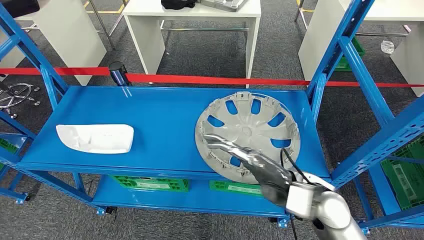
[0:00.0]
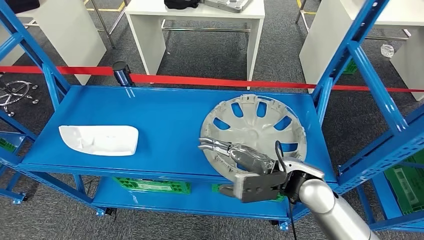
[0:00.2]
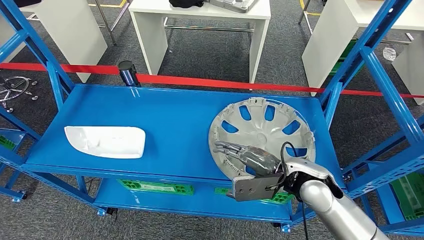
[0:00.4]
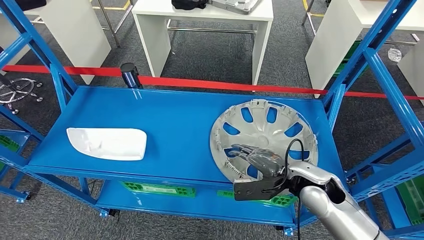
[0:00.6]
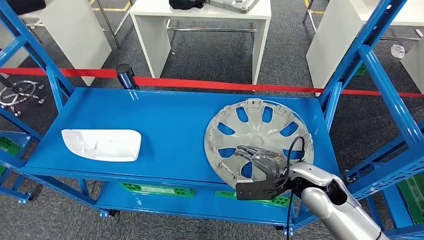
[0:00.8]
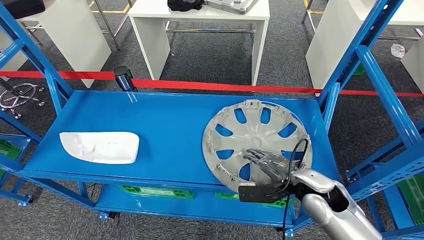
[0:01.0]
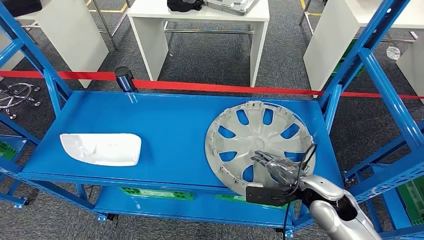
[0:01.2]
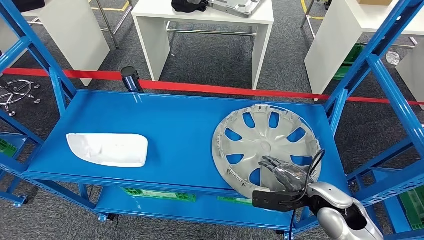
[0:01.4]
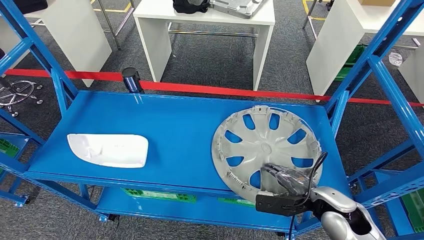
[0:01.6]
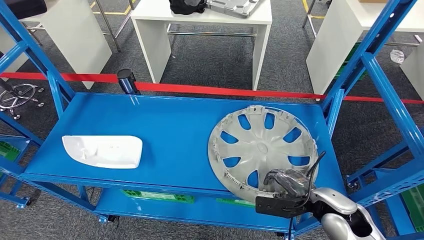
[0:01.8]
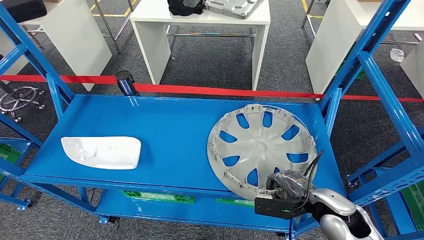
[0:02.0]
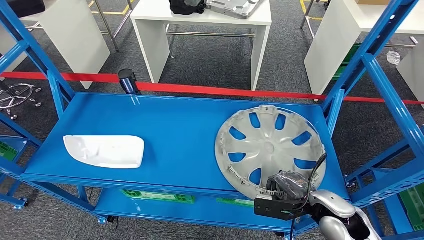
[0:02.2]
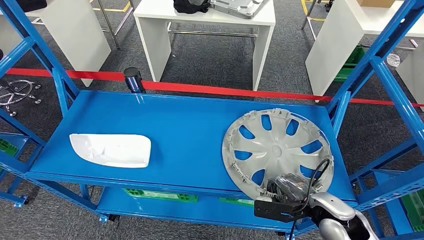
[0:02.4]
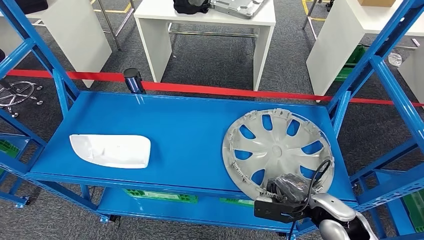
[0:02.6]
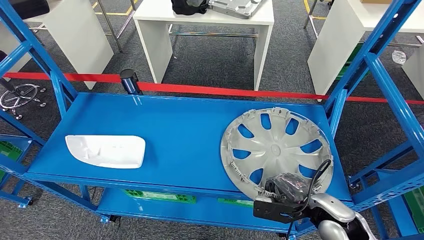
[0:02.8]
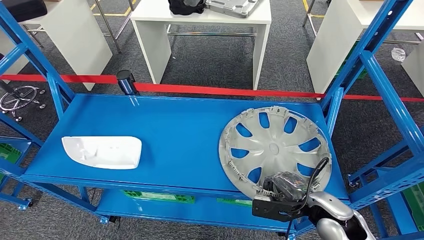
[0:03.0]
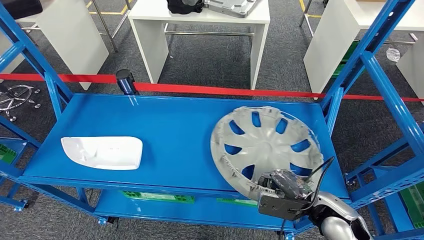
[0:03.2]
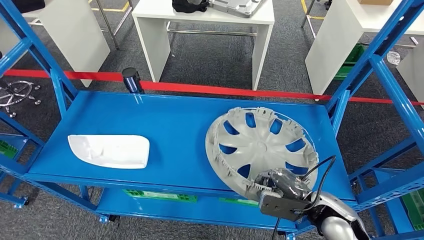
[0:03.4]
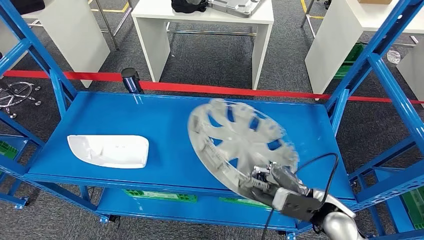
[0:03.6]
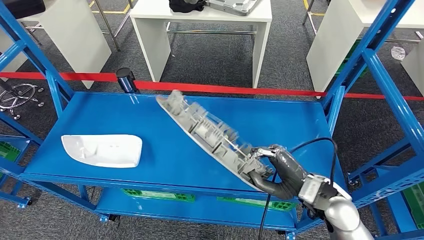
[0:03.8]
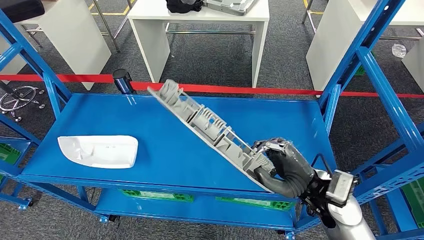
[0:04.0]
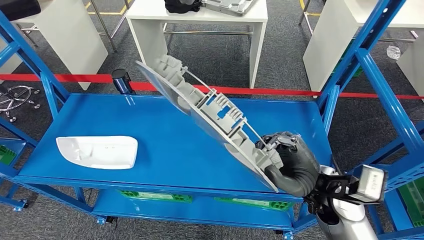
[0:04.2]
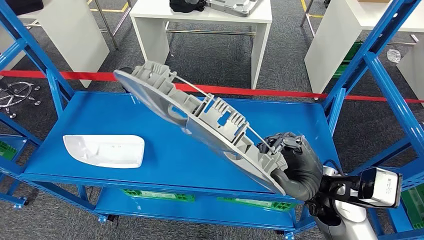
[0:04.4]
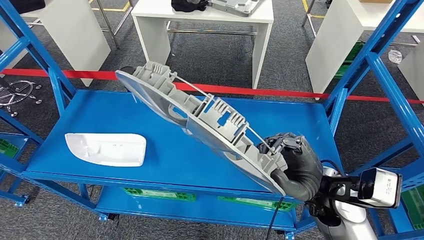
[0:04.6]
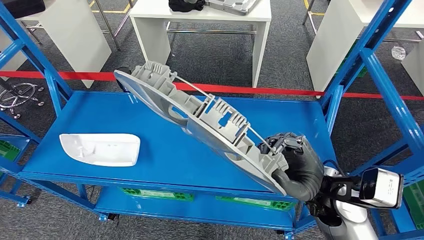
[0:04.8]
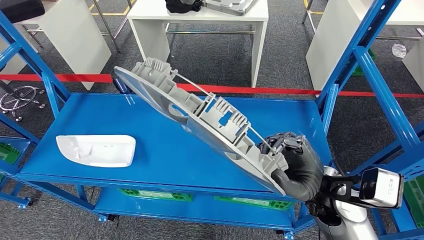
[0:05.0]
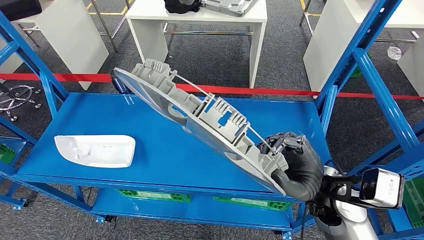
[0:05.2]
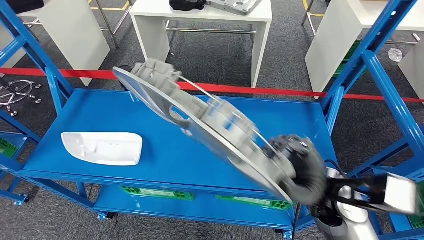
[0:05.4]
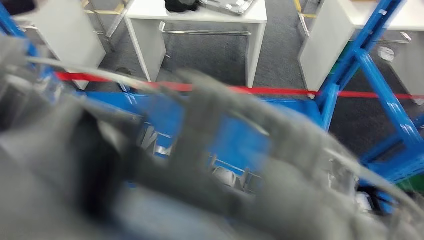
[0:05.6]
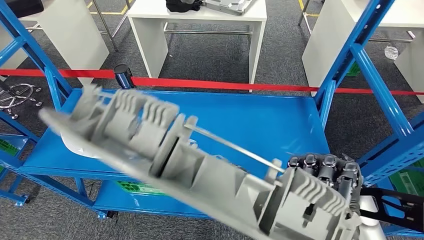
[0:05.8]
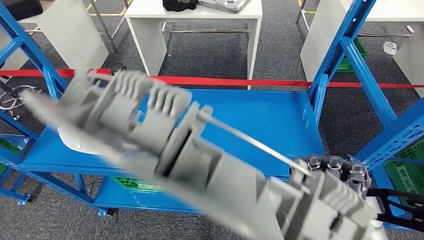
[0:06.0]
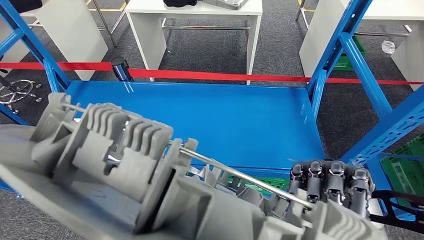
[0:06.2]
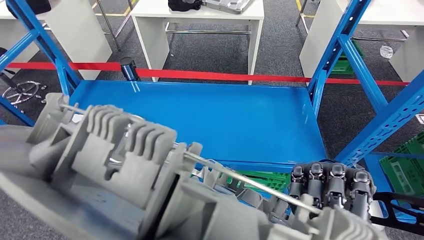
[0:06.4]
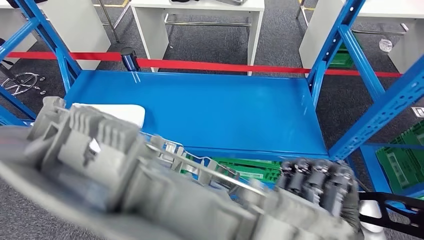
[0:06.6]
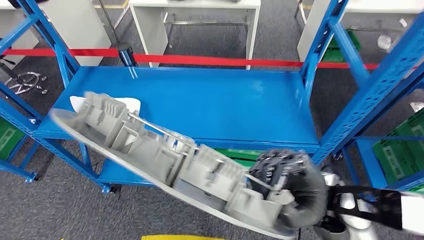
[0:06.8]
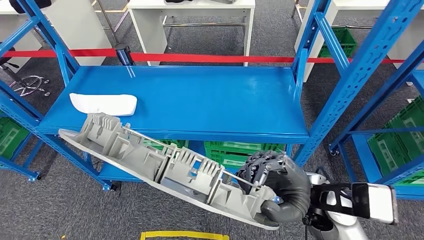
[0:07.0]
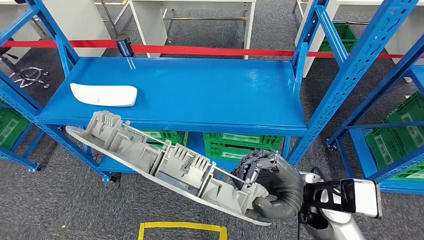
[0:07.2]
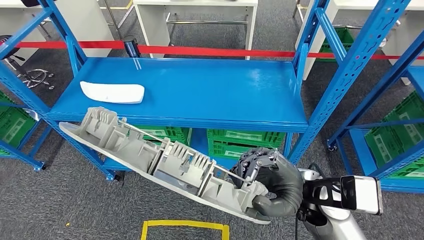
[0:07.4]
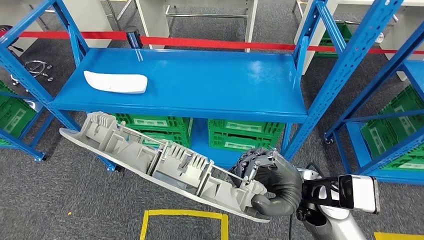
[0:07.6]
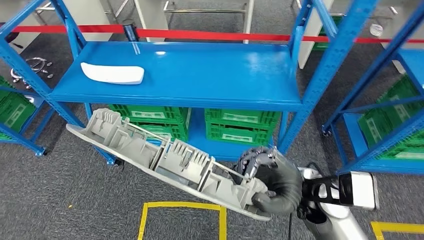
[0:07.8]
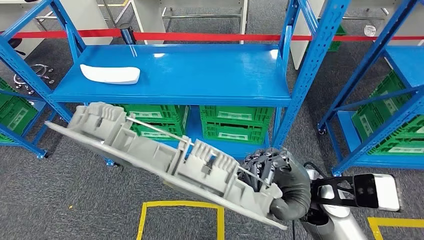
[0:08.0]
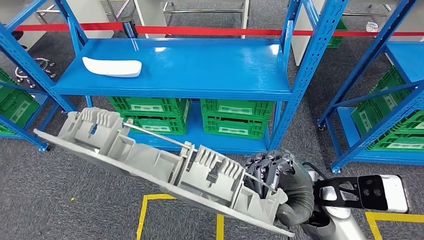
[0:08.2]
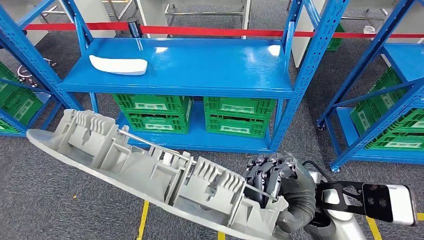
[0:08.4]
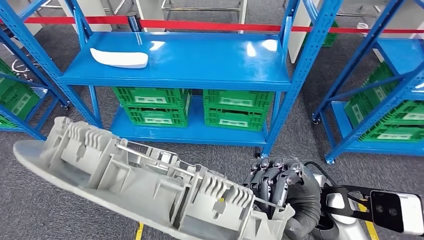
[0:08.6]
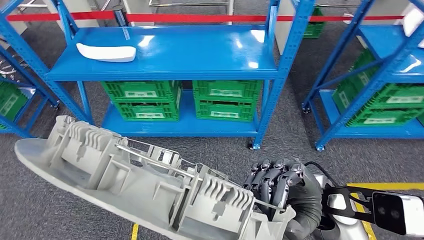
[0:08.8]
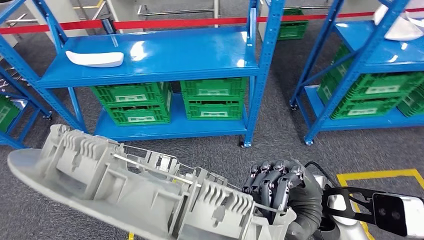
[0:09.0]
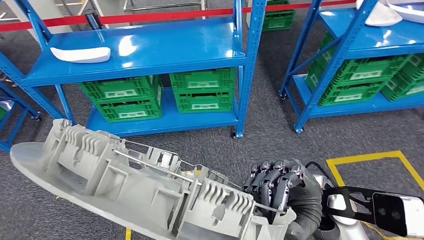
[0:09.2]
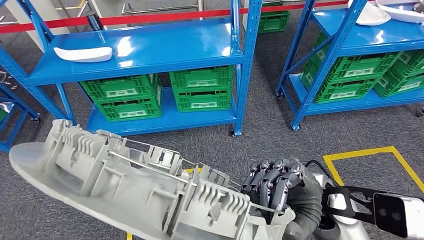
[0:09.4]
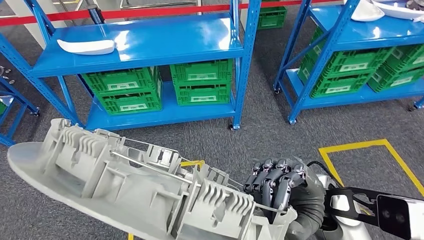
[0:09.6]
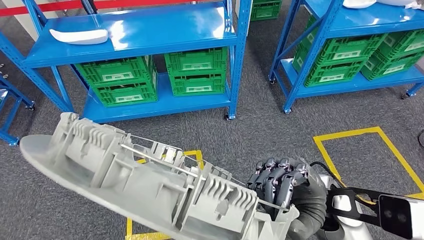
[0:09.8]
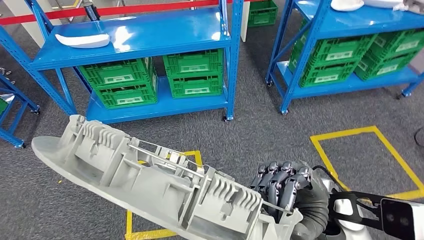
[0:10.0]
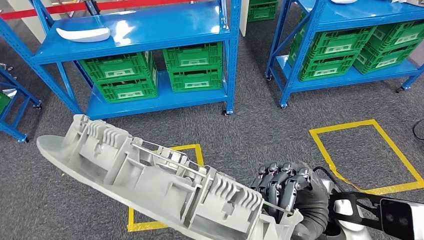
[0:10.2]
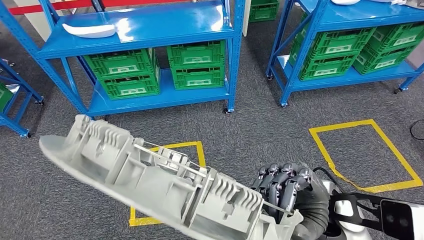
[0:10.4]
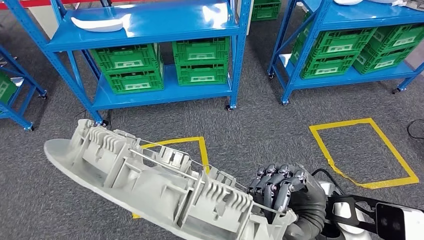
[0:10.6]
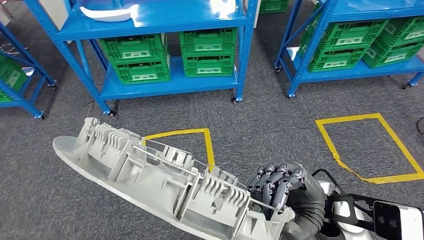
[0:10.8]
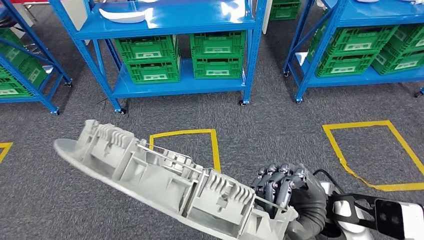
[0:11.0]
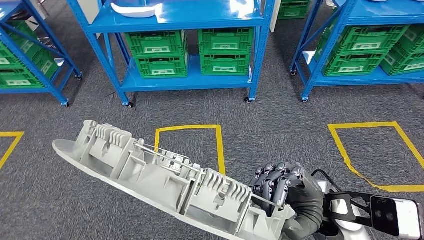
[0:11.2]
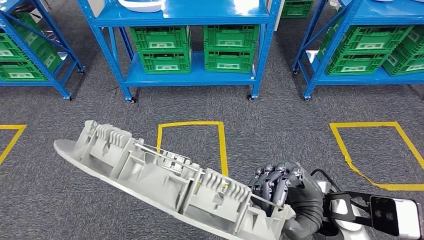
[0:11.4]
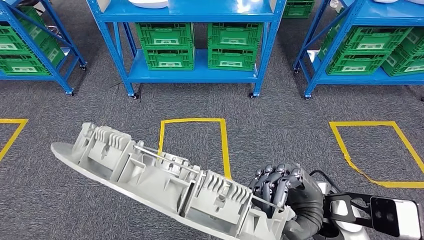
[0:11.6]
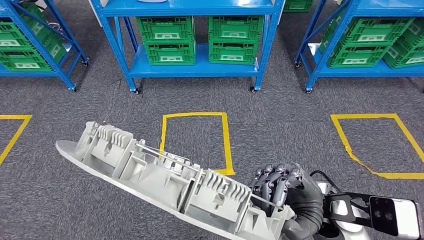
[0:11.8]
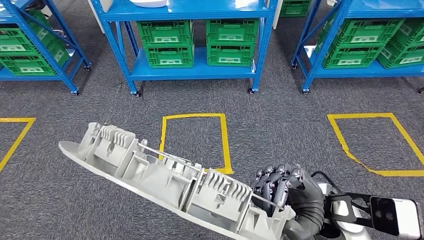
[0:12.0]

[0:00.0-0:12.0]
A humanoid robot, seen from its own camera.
Step, 0:00.0 to 0:03.6: Pick up the small parts from the shelf.

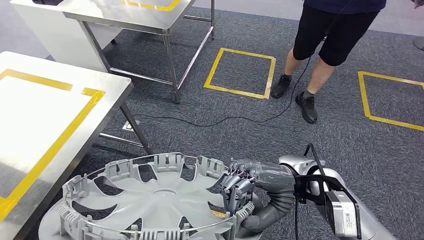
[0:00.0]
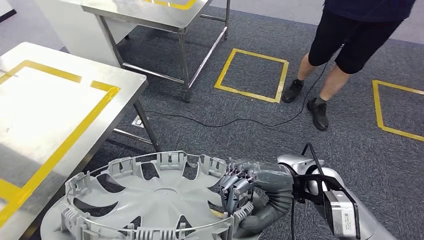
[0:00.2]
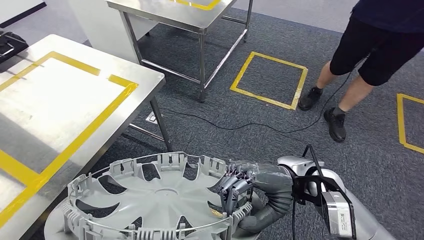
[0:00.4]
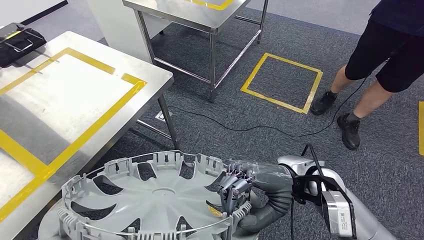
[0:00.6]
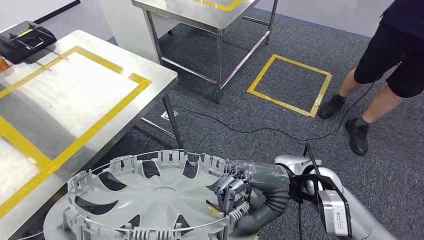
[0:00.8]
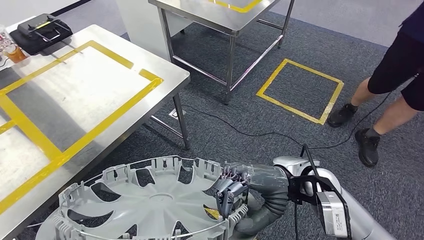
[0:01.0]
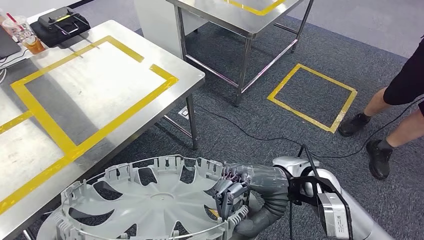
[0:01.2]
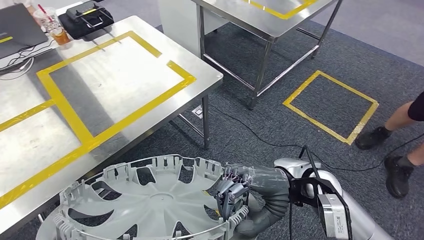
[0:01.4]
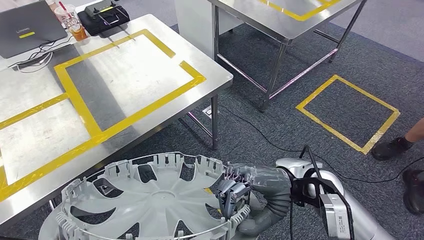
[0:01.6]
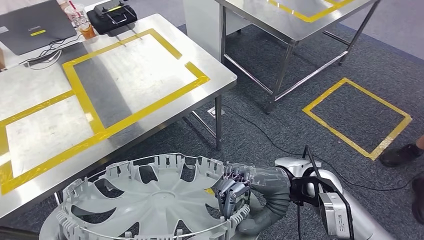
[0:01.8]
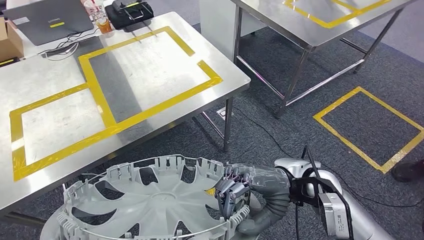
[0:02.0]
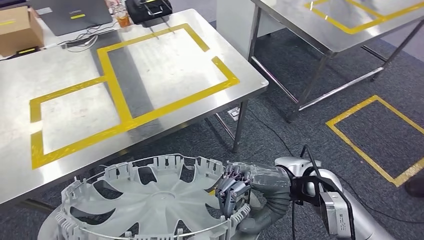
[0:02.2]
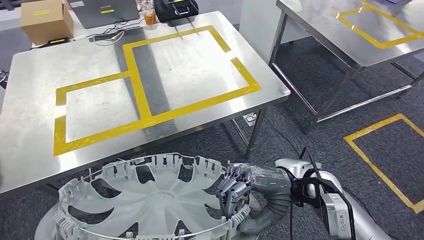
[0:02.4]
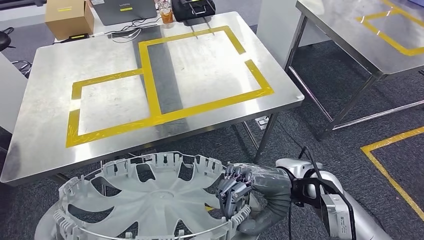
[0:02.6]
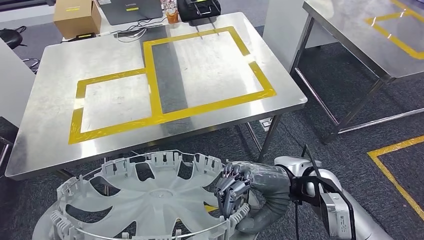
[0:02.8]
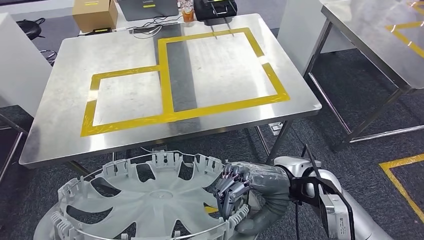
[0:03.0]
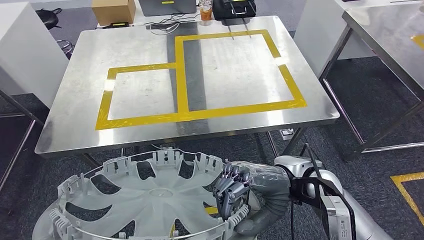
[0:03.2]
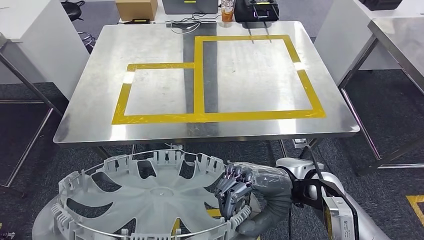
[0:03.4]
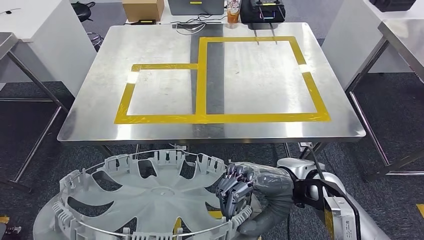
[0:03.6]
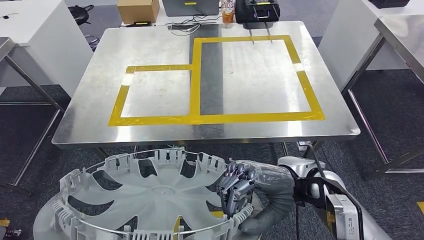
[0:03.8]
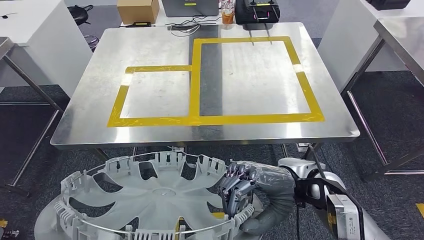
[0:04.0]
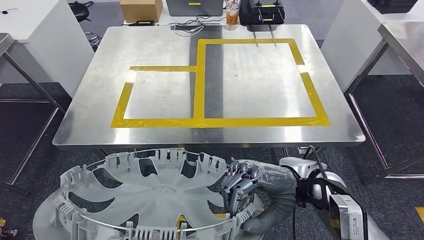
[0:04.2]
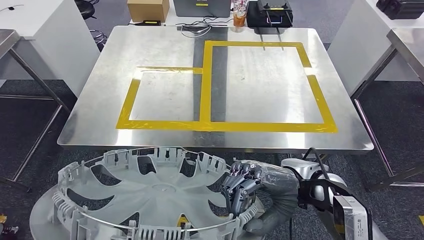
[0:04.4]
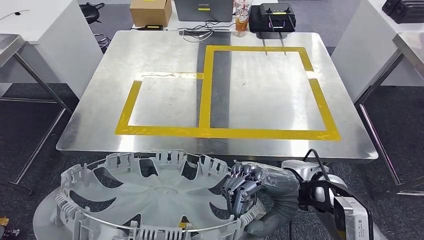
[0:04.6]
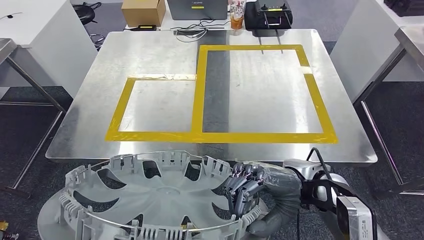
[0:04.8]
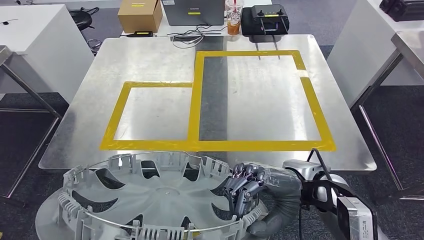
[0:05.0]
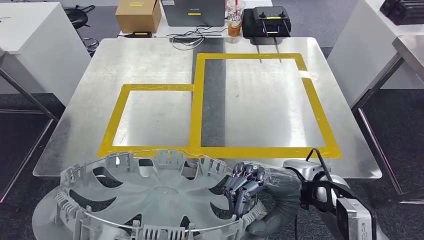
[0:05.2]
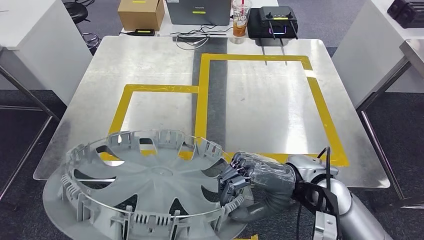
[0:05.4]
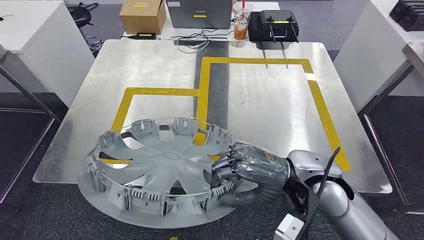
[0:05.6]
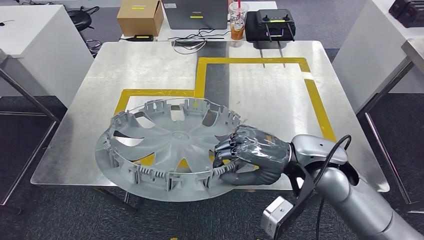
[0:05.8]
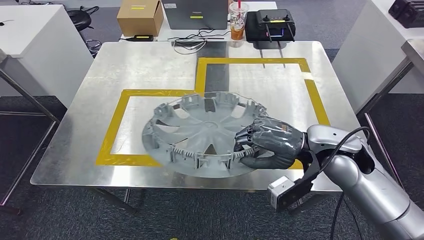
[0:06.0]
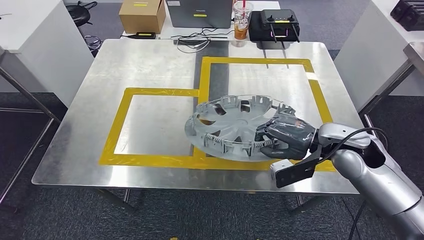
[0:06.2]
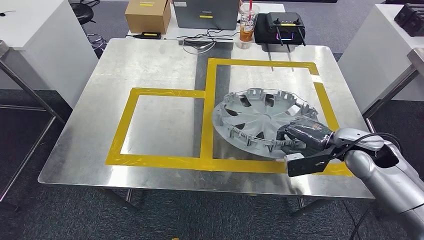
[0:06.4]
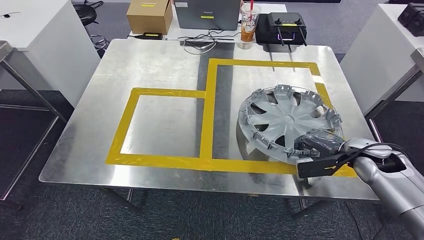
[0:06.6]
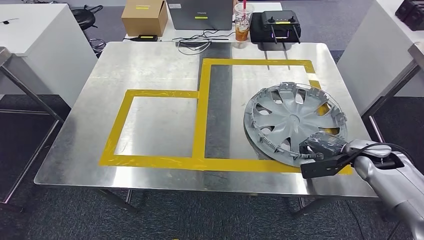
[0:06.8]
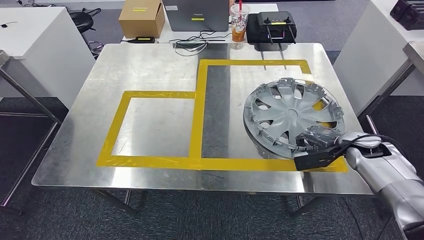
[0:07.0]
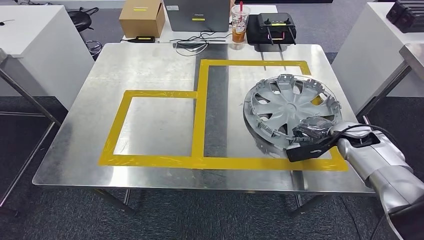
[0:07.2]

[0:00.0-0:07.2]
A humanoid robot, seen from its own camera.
Step, 0:00.0 to 0:03.4: Move the small parts to the workbench.
